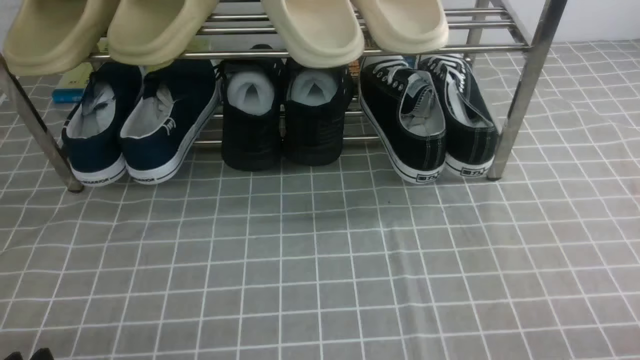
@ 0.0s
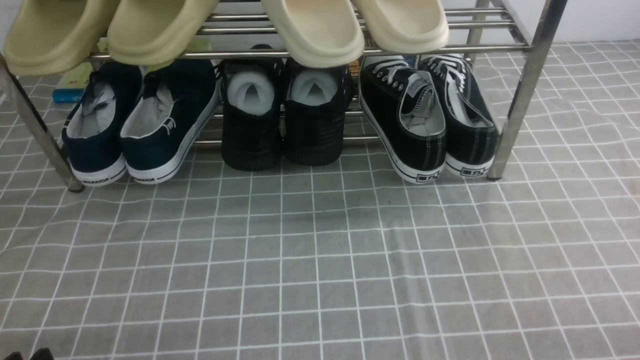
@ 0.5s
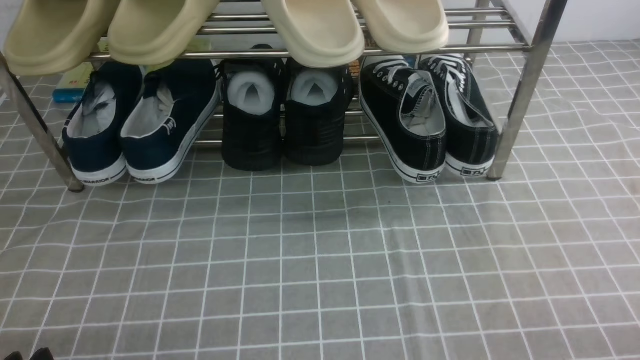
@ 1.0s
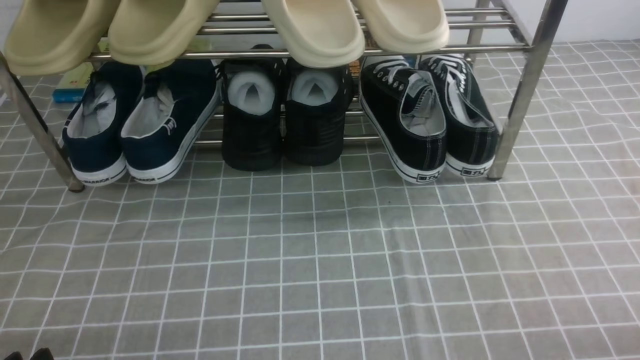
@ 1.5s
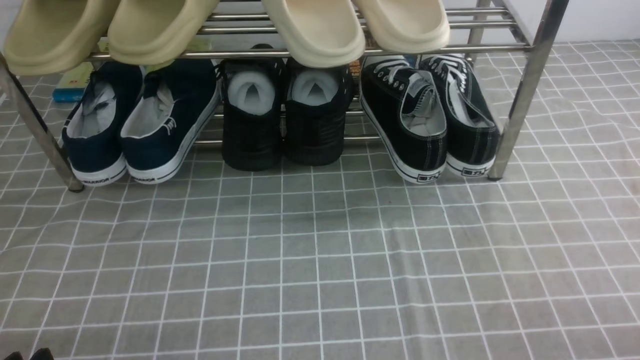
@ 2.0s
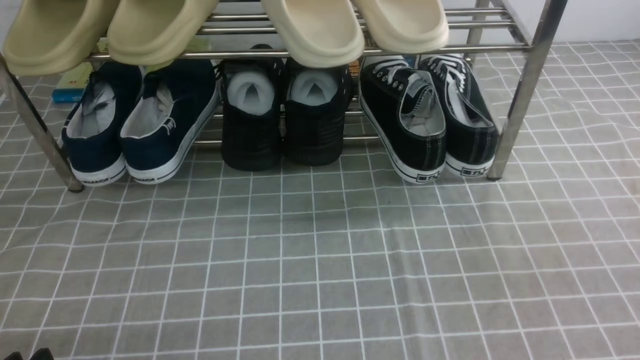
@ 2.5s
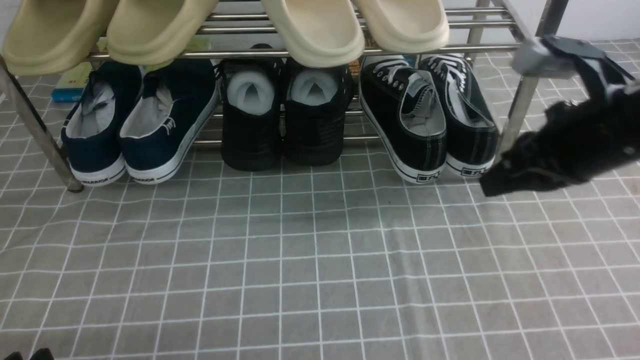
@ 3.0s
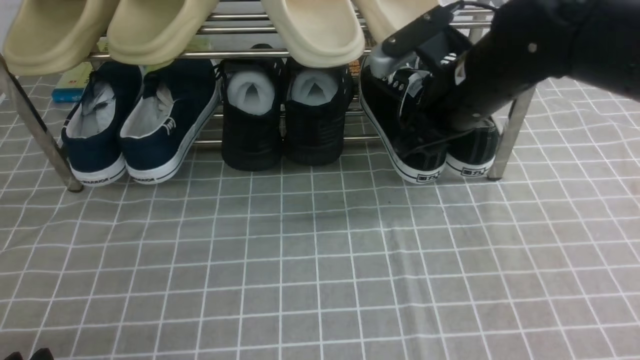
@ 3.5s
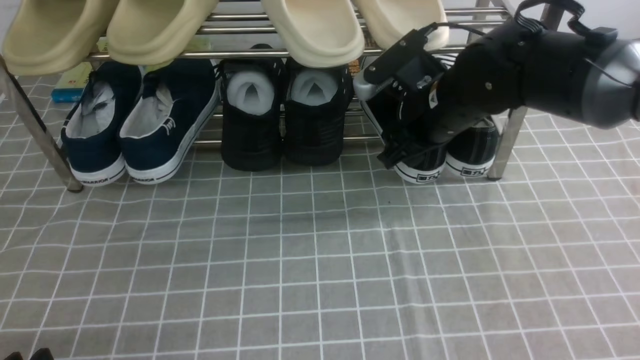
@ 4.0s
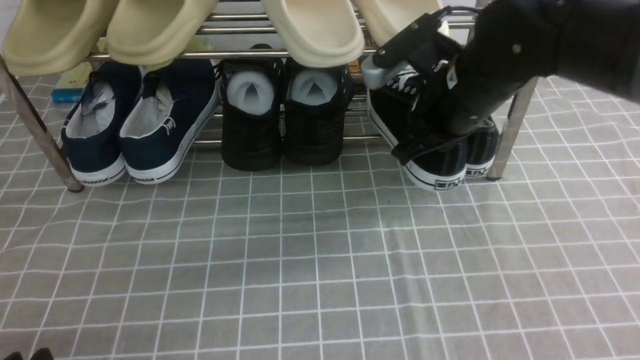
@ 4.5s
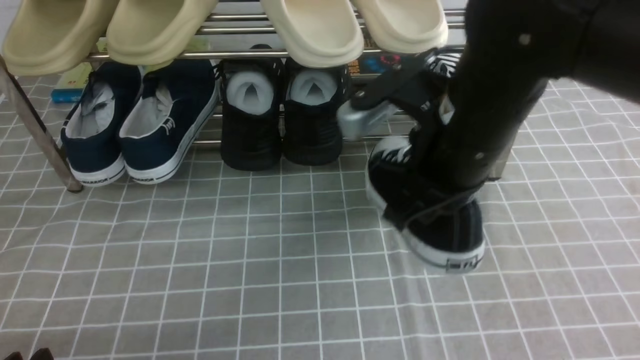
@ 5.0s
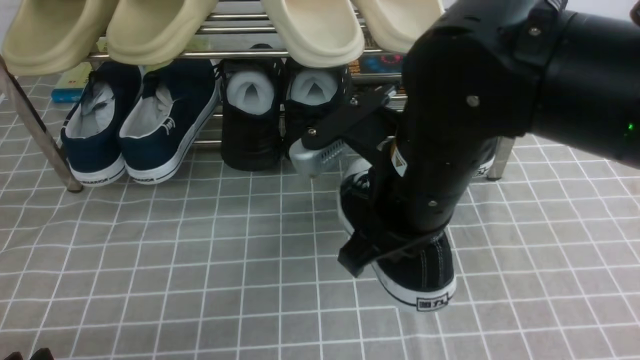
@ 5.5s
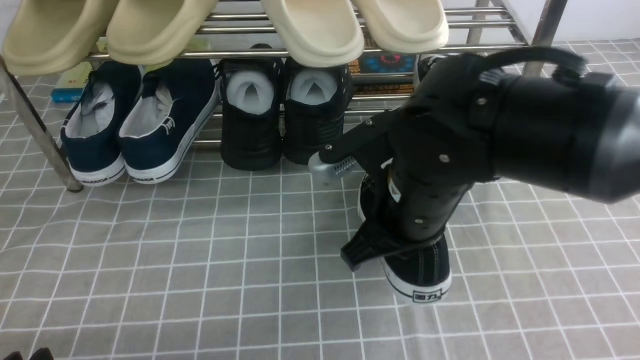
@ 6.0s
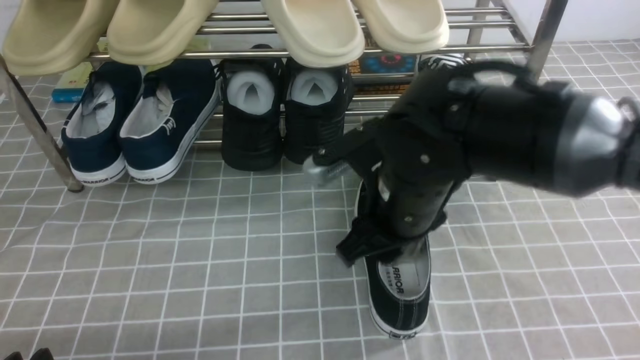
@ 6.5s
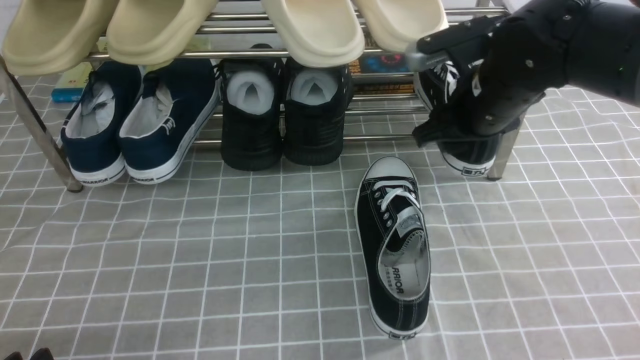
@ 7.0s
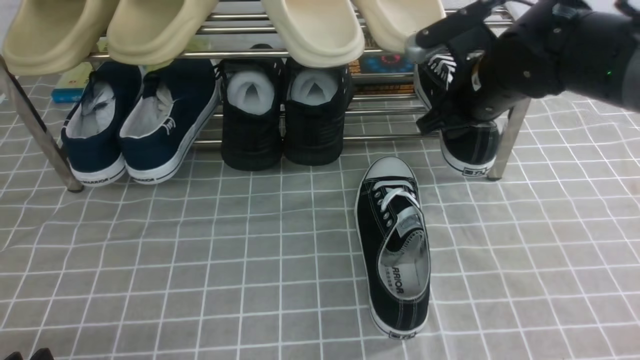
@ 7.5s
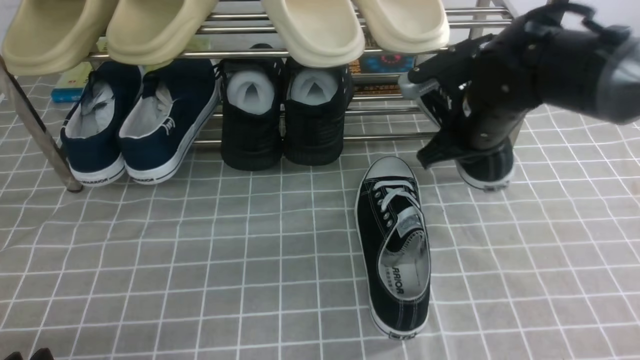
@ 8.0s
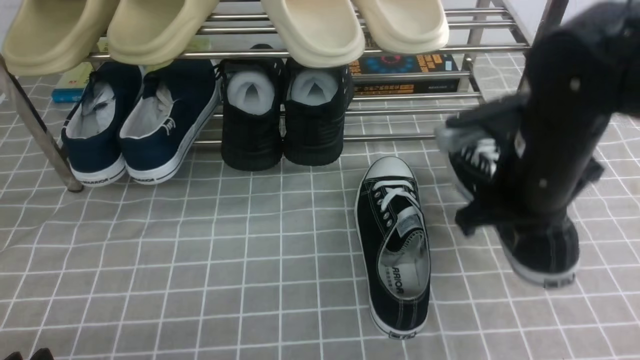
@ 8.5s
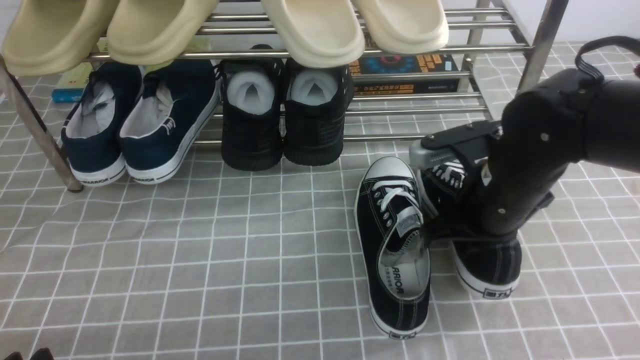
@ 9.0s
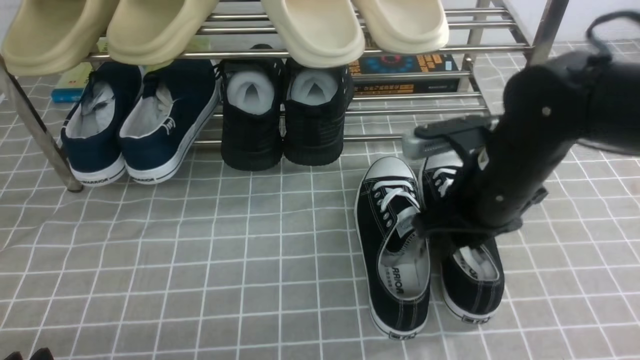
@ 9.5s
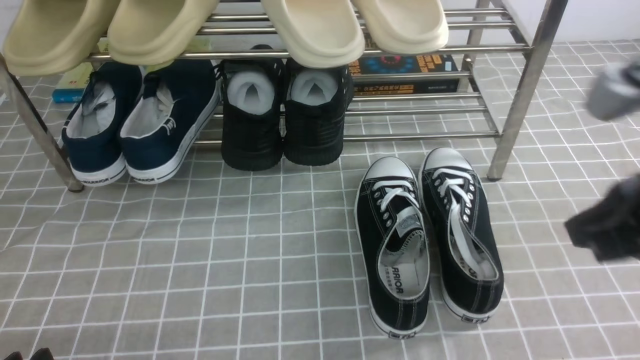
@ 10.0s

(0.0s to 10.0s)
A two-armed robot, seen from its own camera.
Step, 0.0s - 4.0s: use the right arm to clamp a shoe on the right side of the shoe rack.
Step, 4.5s - 6.0s: use the right arm to take out the clamped shoe from the shoe rack and put it down.
Step, 6.5s - 7.5s: use the right arm to clamp a shoe on the right side of the shoe rack.
Step, 8.5s - 9.5s: use the right arm to take out the clamped shoe from the shoe rack and put it down.
2.0s - 4.0s: The right gripper is displaced forward and to the left by approximately 40 cm, and opens its fingers.
4.0s - 6.0s: The right gripper heads backward and to the left, covering approximately 15 cm, and closes up.
6.0s - 8.0s: The right gripper heads forward and to the right, covering roughly 15 cm, and opens and closes again.
8.0s - 10.0s: The right gripper goes roughly 20 cm backward, and opens, then closes once more.

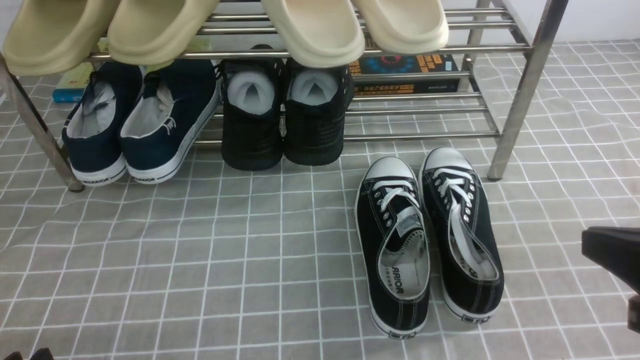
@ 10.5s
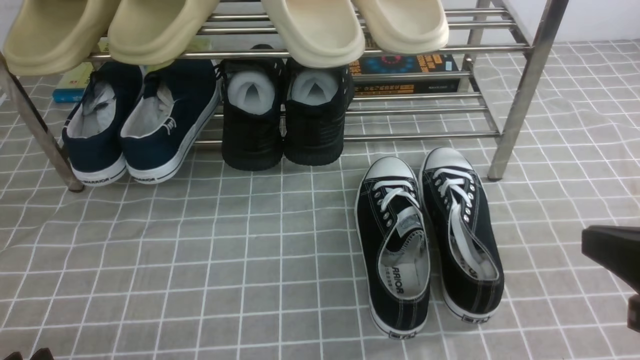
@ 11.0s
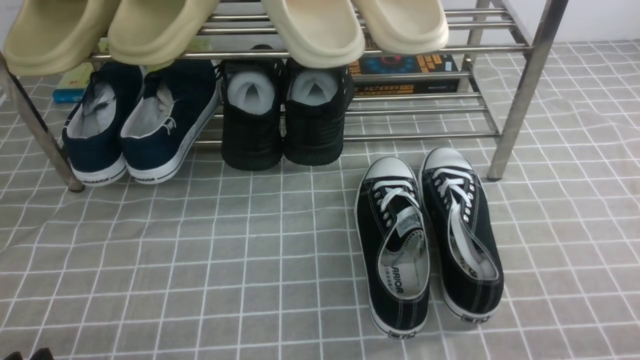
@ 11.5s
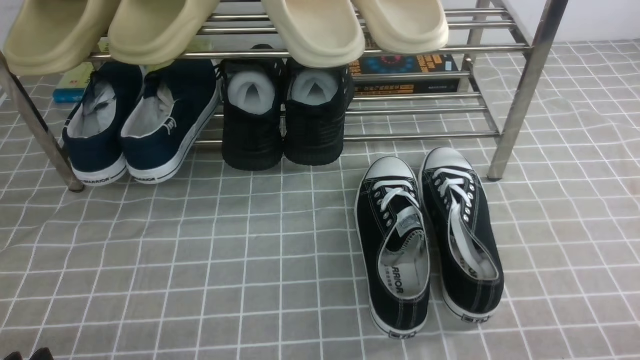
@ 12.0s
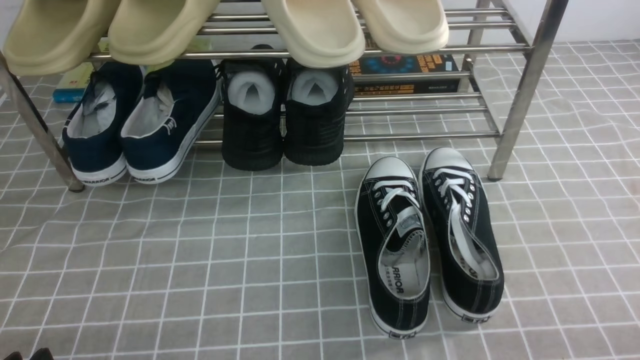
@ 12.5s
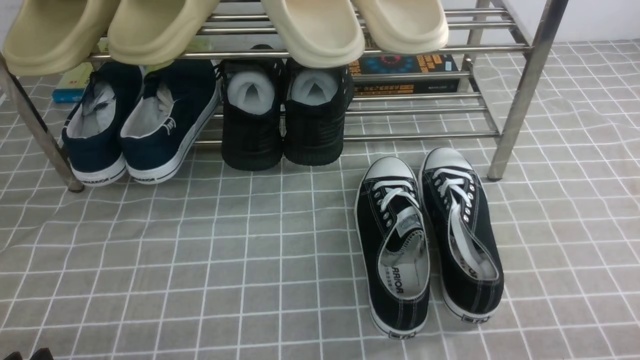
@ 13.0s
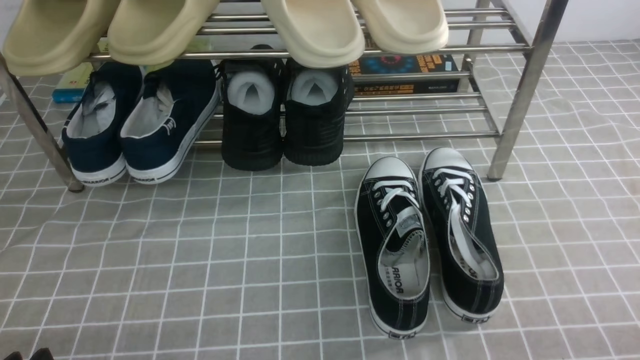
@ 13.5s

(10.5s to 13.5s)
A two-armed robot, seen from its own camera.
10.5s - 12.0s: The right gripper shifts about 15 cm downward, to the right and backward.
12.0s - 13.5s: Both grippers stay put.
